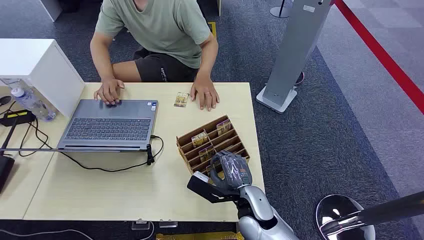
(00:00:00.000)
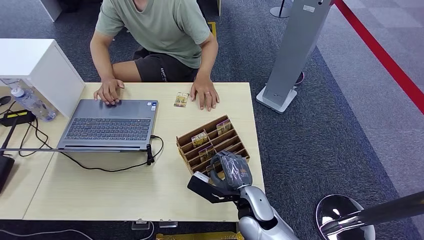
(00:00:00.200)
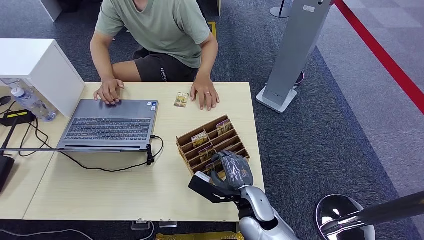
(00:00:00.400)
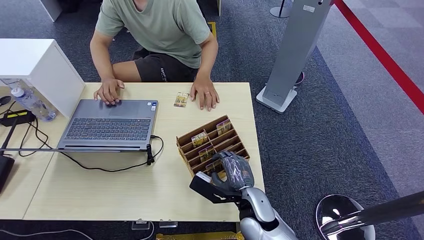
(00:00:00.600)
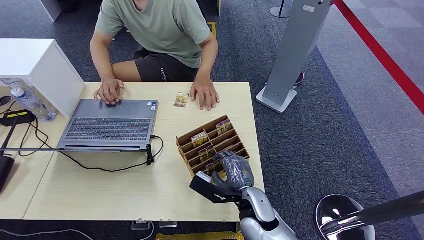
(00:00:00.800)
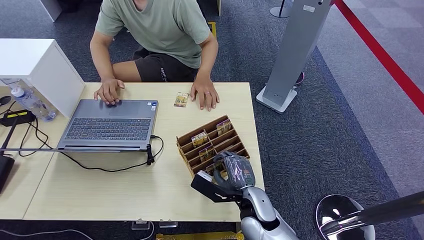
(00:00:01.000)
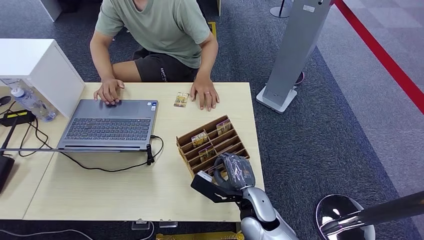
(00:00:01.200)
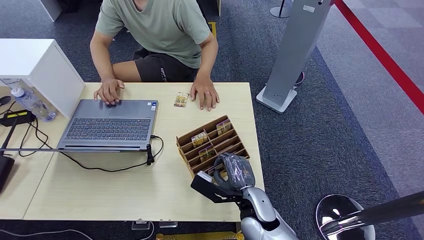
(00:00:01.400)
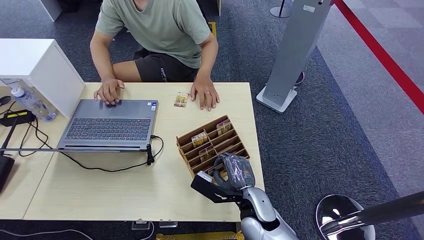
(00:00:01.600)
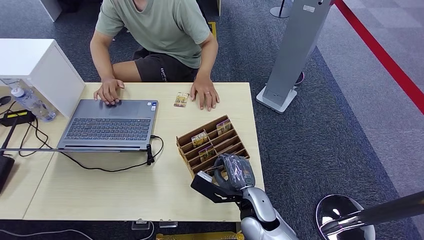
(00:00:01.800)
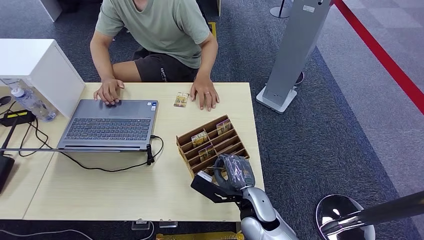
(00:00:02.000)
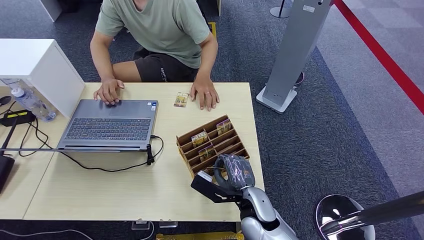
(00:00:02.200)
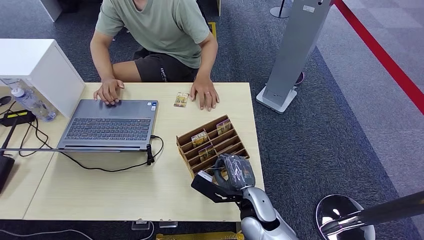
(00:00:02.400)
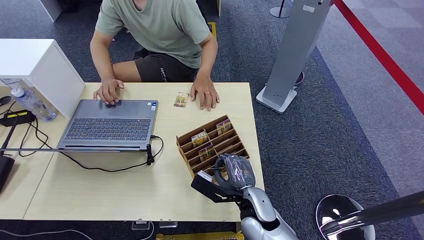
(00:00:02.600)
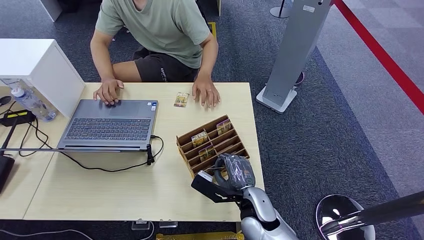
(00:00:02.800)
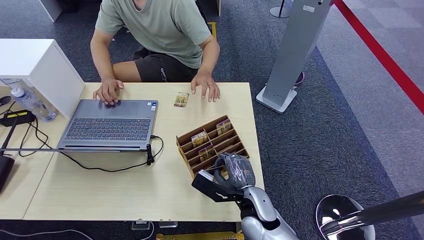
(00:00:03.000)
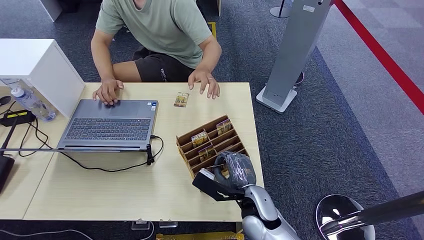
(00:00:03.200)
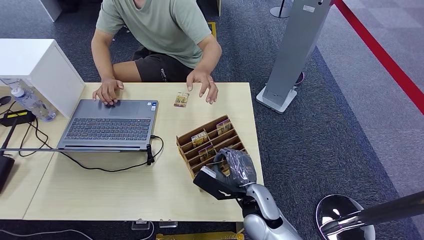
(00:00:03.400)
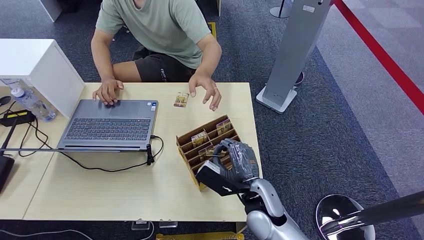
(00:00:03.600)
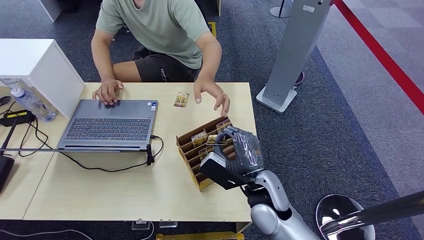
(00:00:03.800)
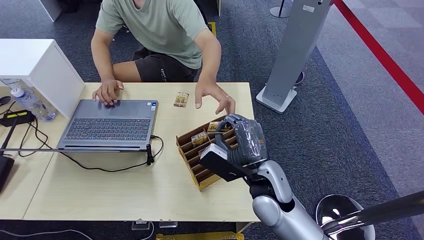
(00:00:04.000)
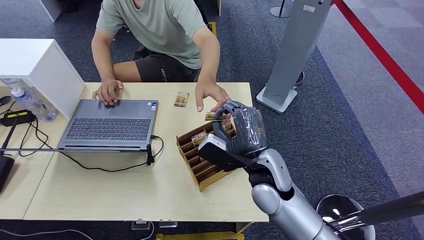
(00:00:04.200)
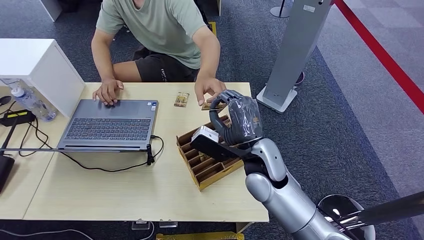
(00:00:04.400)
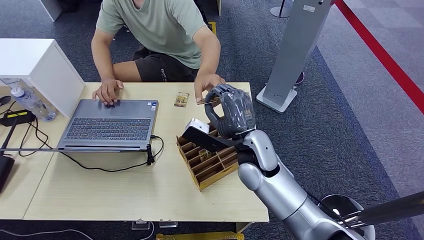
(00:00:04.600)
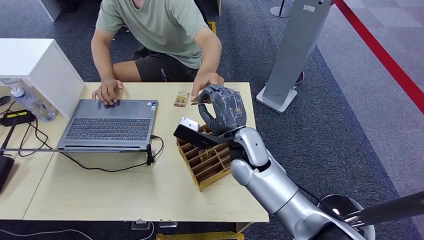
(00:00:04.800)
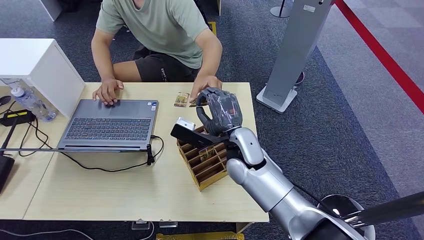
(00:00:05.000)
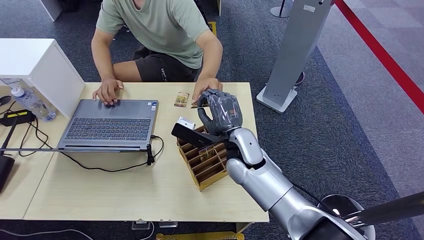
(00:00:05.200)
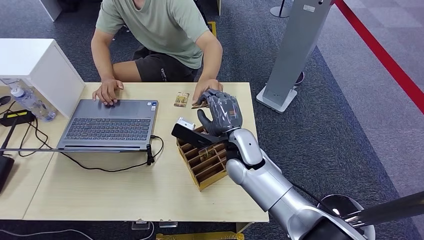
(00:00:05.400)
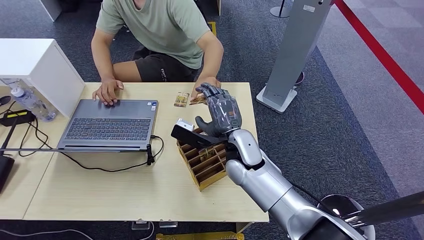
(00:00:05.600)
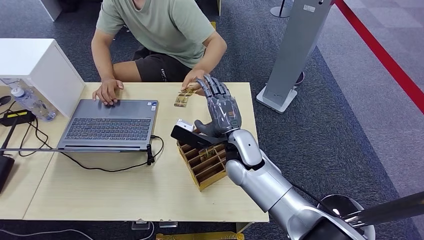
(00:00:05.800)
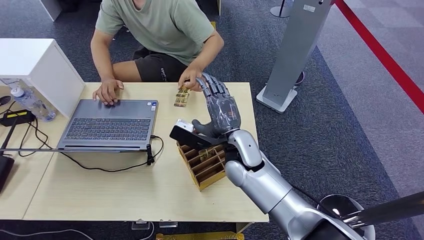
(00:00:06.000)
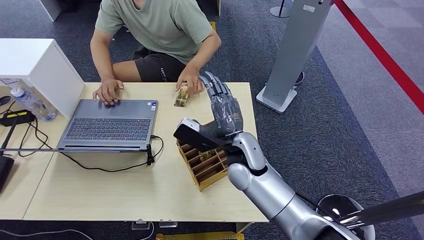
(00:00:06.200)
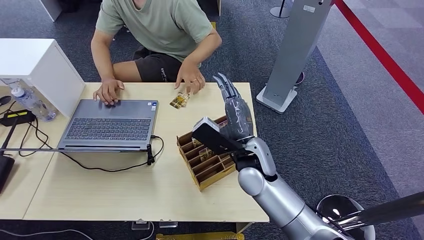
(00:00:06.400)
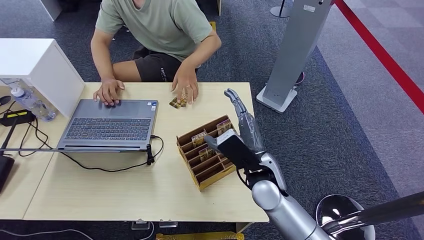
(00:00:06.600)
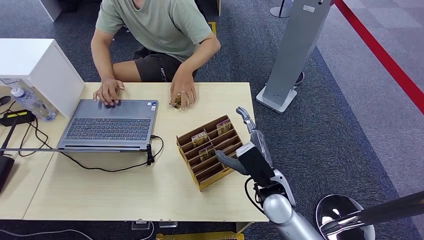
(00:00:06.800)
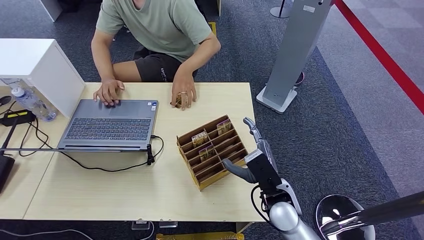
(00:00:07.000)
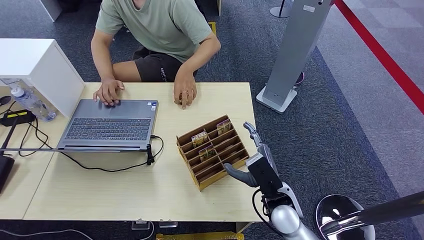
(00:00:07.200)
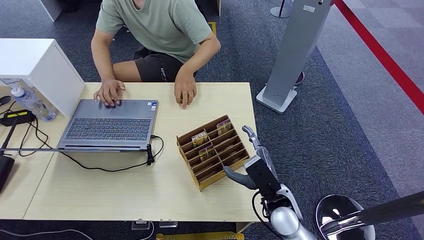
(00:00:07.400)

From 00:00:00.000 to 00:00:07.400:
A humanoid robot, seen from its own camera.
Step, from 00:00:00.000 to 00:00:03.800: Pick up the room card from the card holder.
Step, from 00:00:04.000 to 00:00:07.400: Hand the room card to the target.
From 00:00:01.400 to 00:00:03.000: Neither hand changes place.
From 00:00:03.000 to 00:00:04.400: The right hand is displaced upward and forward by approximately 15 cm.
From 00:00:04.400 to 00:00:06.000: The right hand ends up roughly 5 cm from where it was.
From 00:00:06.000 to 00:00:07.400: The right hand travels backward, to the right and downward by approximately 15 cm.
